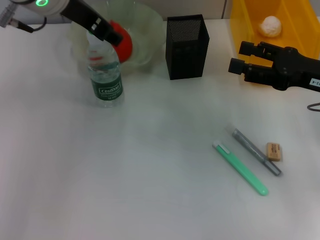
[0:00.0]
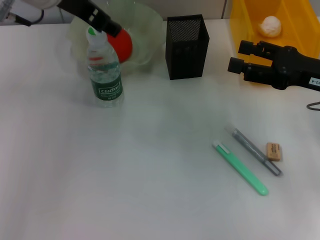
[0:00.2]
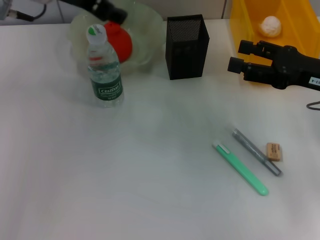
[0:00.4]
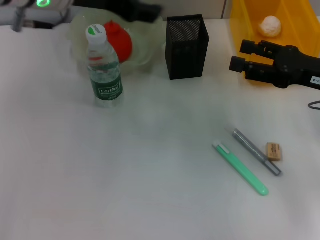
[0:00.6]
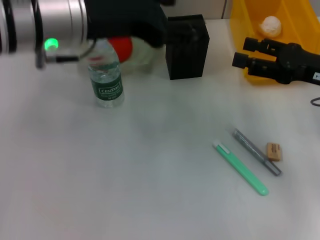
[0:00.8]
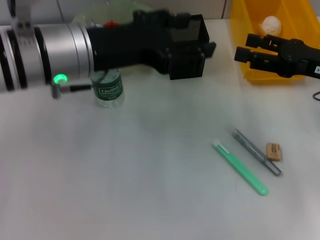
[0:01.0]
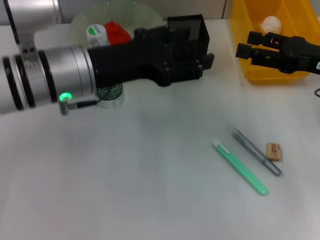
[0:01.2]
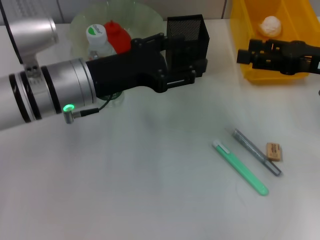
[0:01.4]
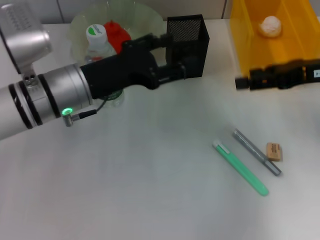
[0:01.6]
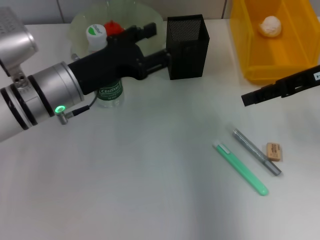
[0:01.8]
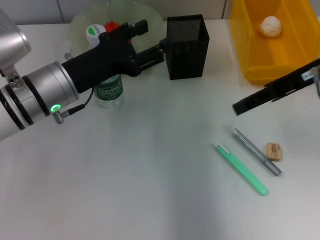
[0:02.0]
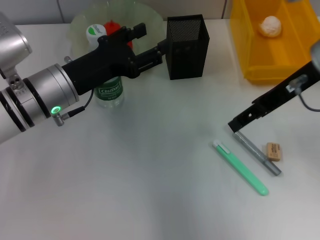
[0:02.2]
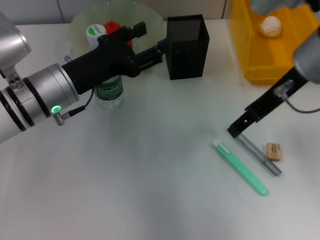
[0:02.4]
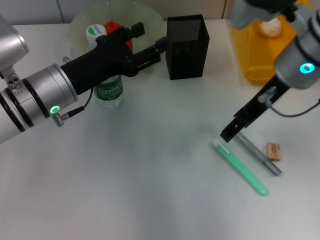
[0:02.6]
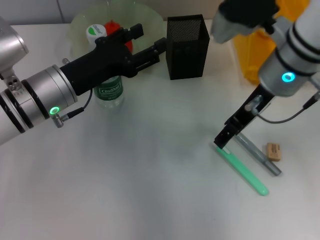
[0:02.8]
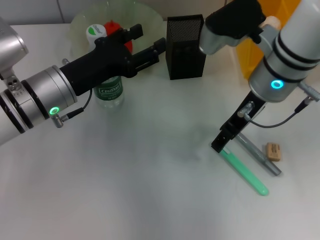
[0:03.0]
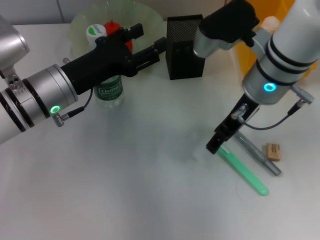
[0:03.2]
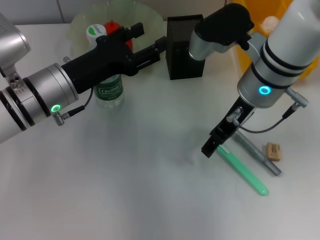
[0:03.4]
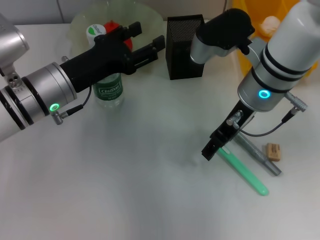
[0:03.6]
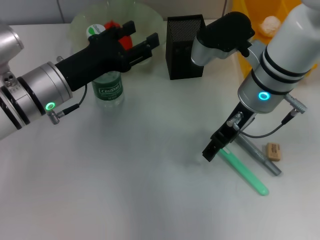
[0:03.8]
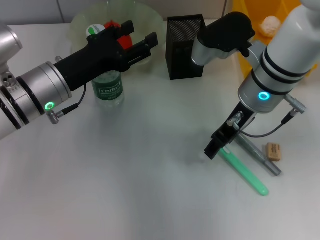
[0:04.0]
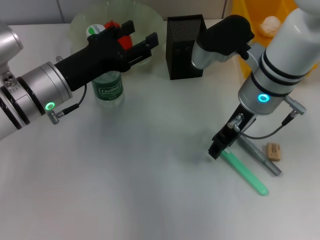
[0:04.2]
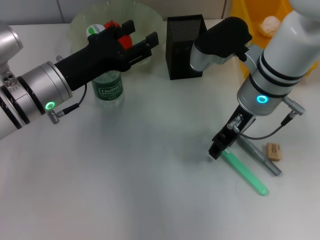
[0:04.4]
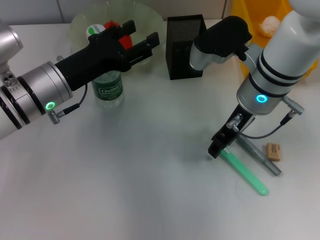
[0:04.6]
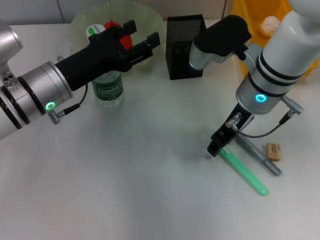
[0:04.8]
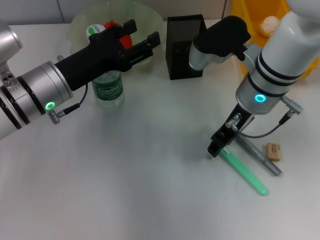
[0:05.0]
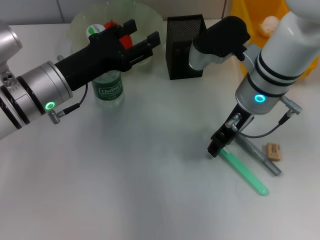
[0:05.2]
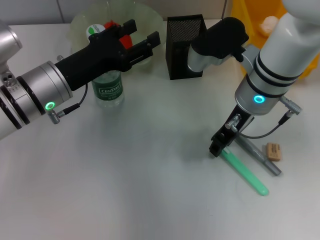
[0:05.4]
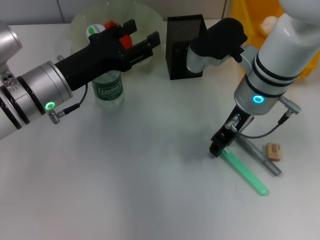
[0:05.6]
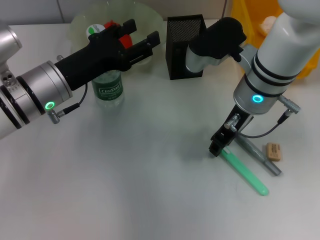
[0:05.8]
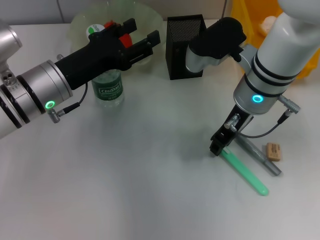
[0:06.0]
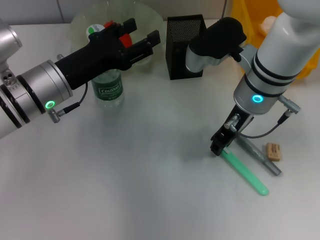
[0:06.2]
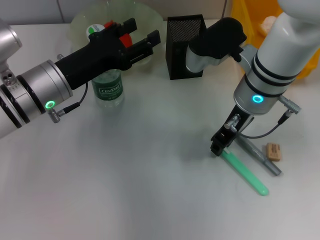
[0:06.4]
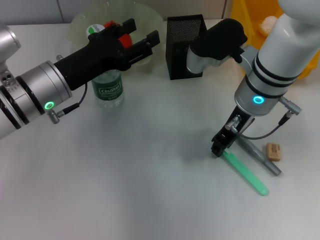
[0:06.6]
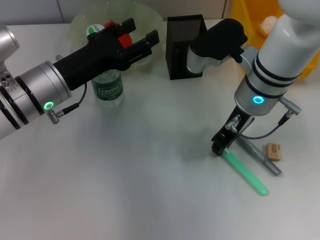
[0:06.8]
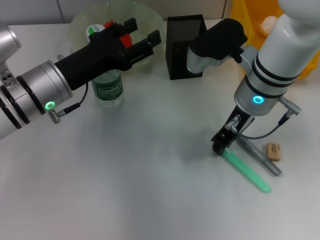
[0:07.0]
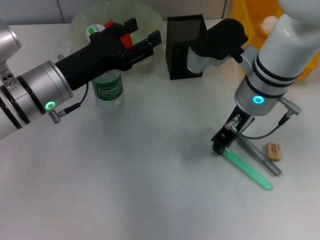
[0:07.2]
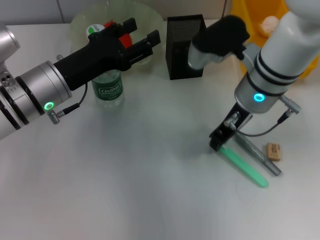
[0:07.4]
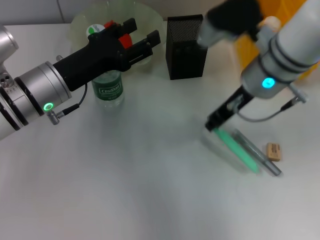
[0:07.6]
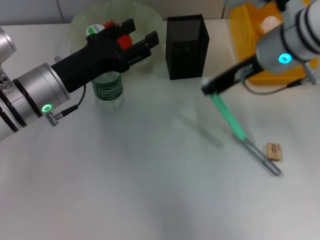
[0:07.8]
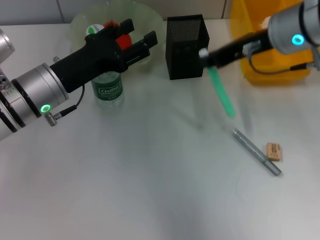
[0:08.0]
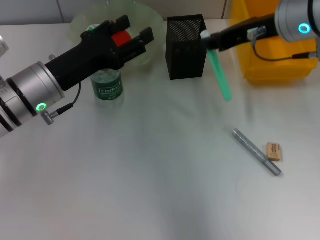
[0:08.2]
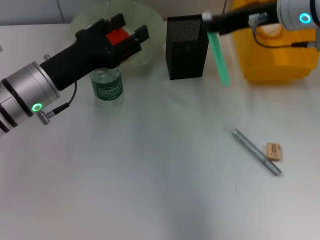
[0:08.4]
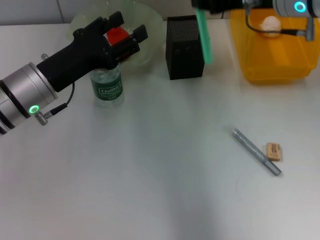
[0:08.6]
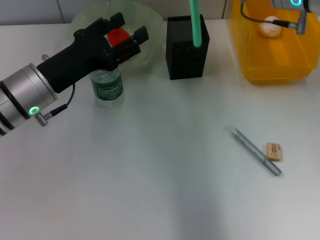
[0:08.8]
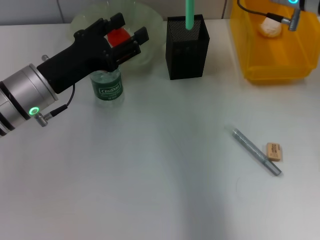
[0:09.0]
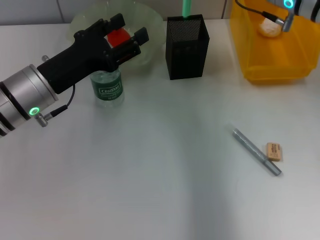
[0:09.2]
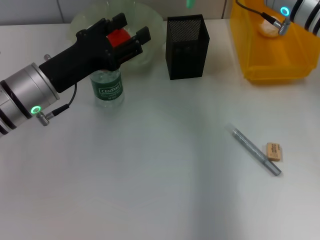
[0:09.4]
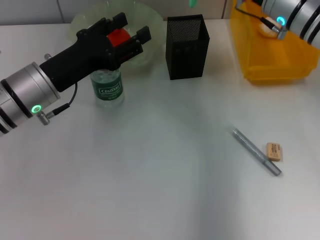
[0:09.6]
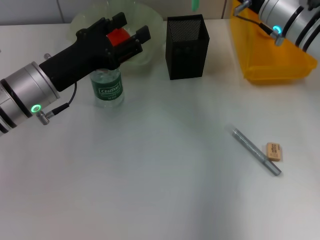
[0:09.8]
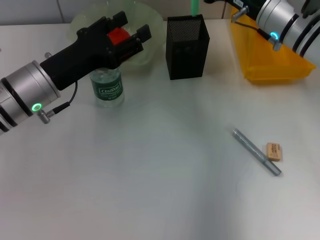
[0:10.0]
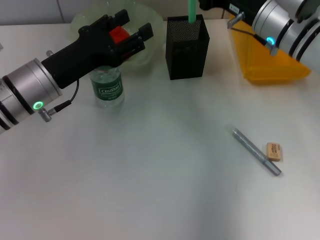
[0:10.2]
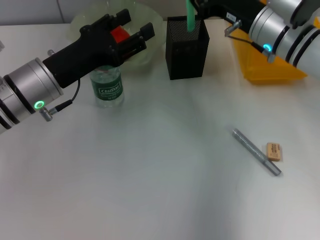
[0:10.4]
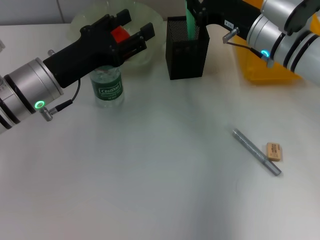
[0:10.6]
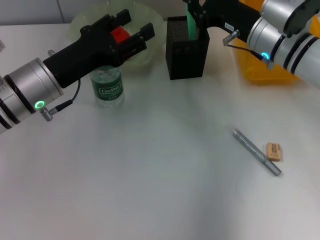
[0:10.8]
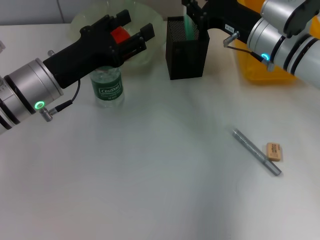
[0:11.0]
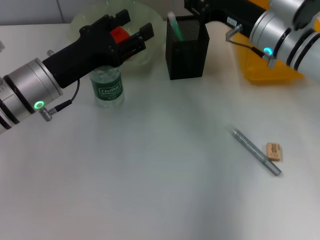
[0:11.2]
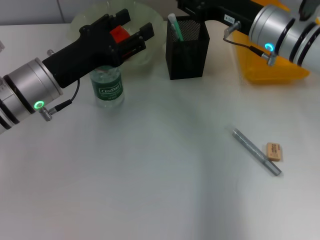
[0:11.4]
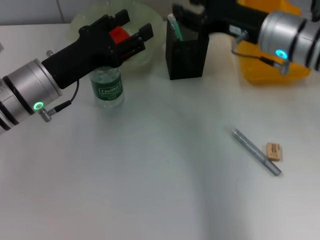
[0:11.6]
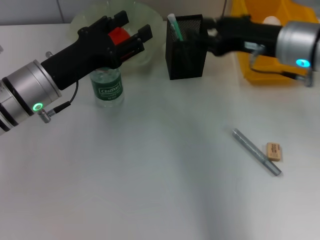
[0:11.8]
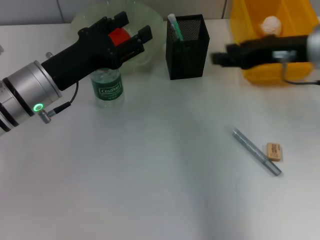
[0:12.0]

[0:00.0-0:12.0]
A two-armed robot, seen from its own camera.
Step, 0:00.0 to 0:07.0: Grab the blue utility knife with the right hand.
Step, 0:07.4 to 0:11.4: Place the blue utility knife into the pen holder with the right hand.
0:00.0 to 0:01.6: The left gripper shifts roughly 15 cm downward and backward, while the right gripper travels upward by approximately 5 cm.
0:01.6 to 0:03.0: The right gripper is displaced to the left by some 15 cm.
0:03.0 to 0:04.4: There are only small adjustments of the grippers.
0:04.4 to 0:06.0: Both grippers stay about where they are.
0:06.0 to 0:07.6: The grippers move only a little.
0:07.6 to 0:09.0: The right gripper changes place by approximately 10 cm.
0:09.0 to 0:10.4: The right gripper goes about 10 cm downward.
0:10.4 to 0:12.0: The right gripper shifts some 10 cm upward, backward and to the right, and opens.

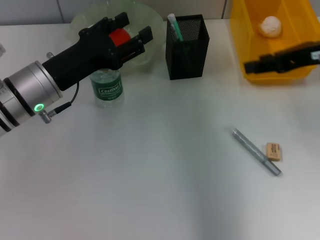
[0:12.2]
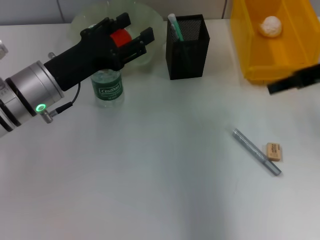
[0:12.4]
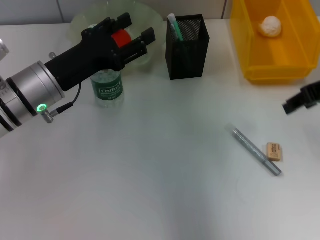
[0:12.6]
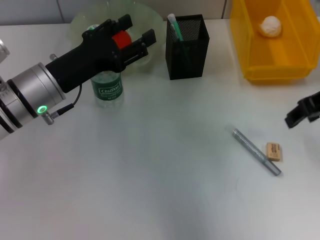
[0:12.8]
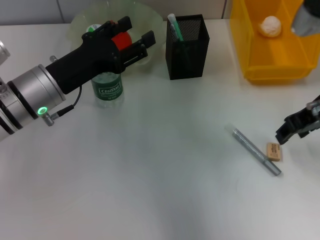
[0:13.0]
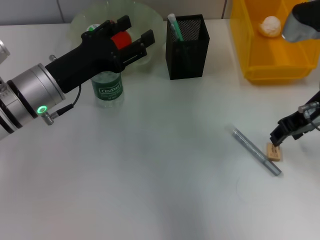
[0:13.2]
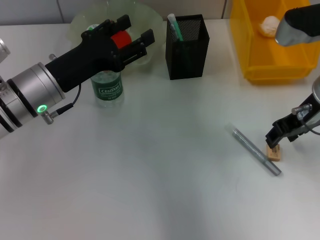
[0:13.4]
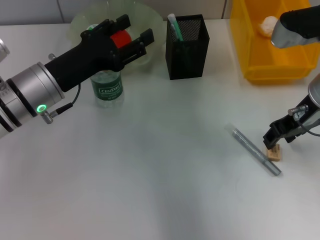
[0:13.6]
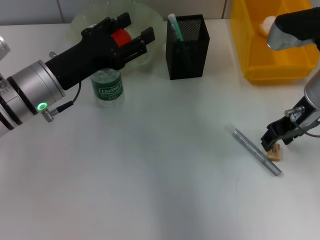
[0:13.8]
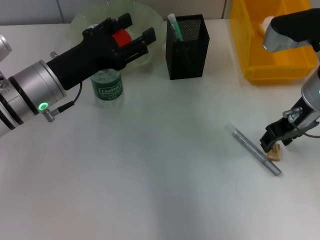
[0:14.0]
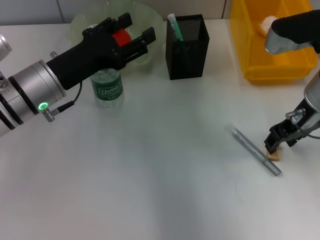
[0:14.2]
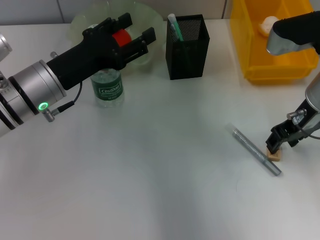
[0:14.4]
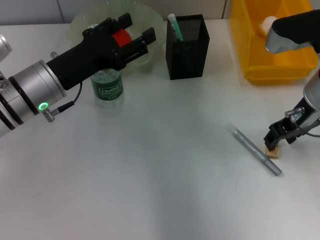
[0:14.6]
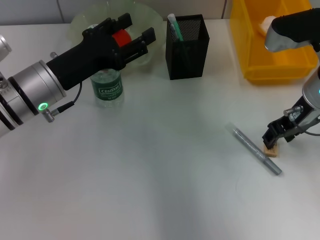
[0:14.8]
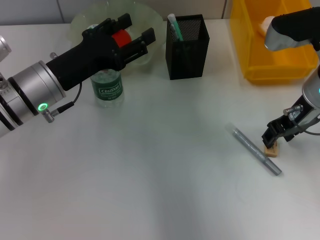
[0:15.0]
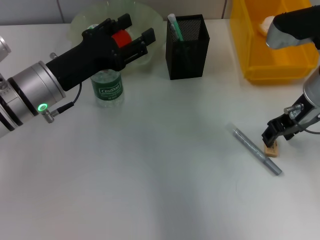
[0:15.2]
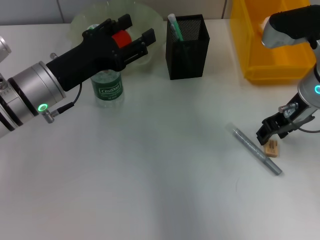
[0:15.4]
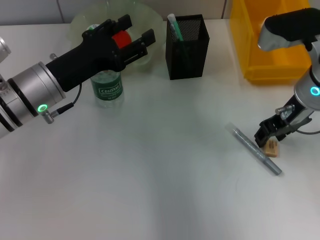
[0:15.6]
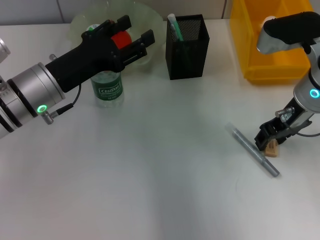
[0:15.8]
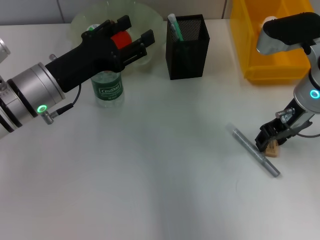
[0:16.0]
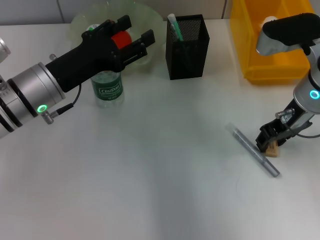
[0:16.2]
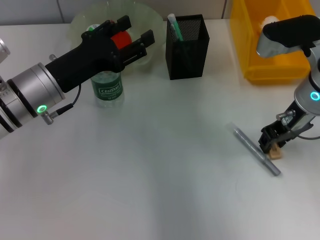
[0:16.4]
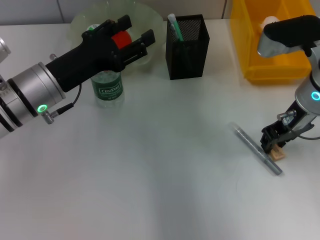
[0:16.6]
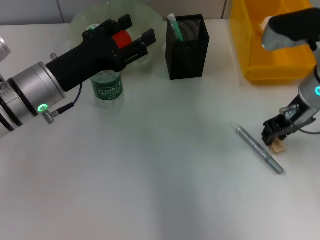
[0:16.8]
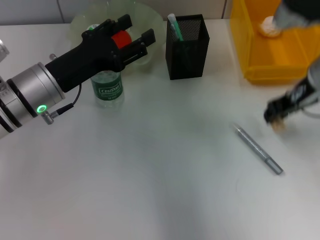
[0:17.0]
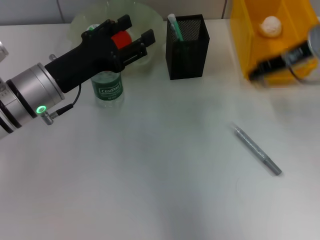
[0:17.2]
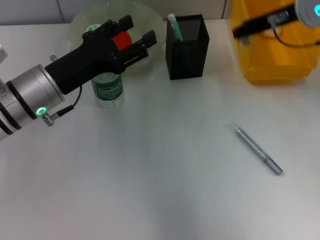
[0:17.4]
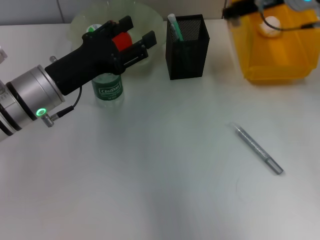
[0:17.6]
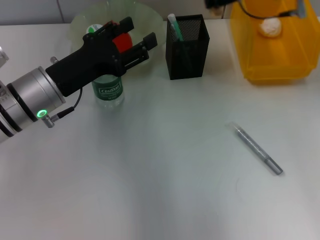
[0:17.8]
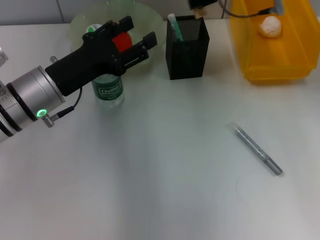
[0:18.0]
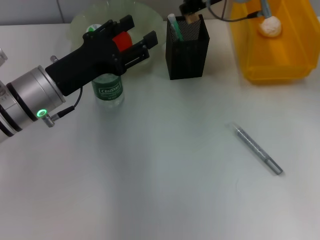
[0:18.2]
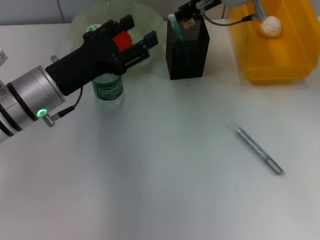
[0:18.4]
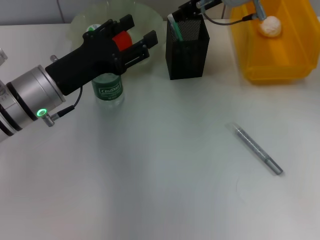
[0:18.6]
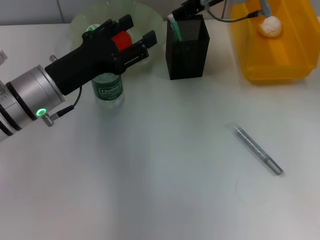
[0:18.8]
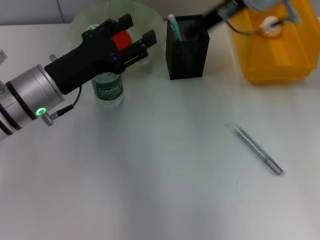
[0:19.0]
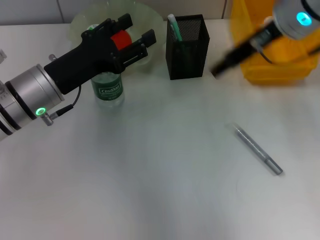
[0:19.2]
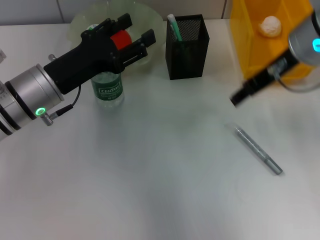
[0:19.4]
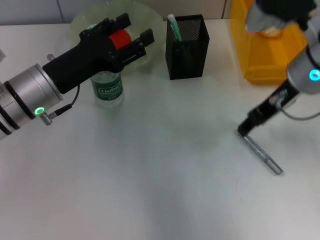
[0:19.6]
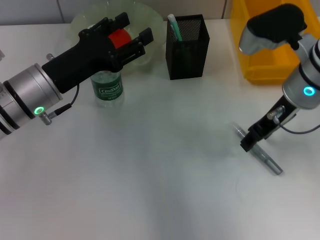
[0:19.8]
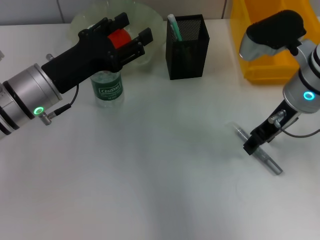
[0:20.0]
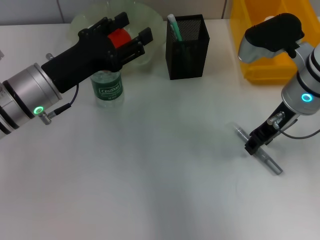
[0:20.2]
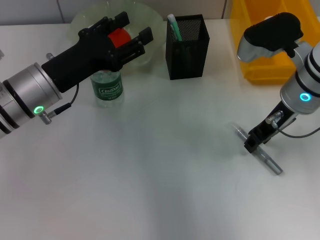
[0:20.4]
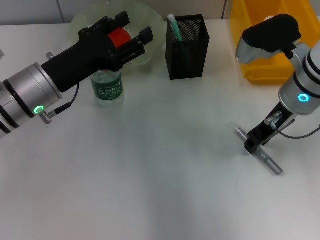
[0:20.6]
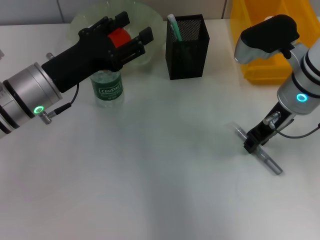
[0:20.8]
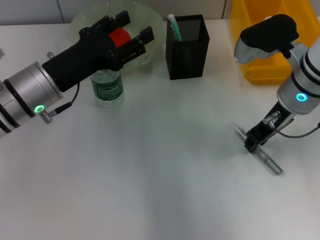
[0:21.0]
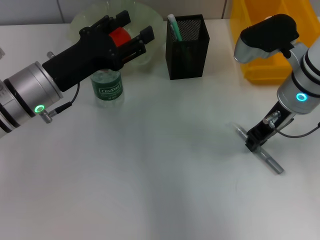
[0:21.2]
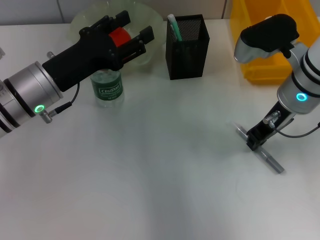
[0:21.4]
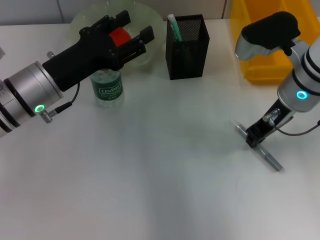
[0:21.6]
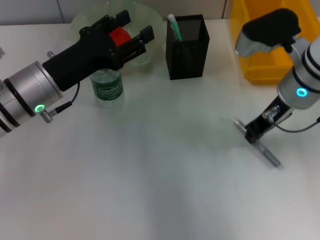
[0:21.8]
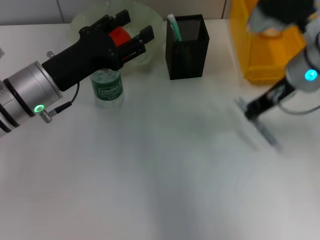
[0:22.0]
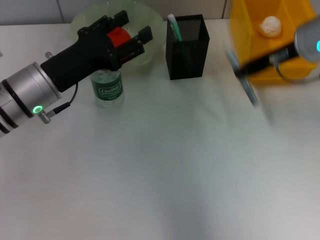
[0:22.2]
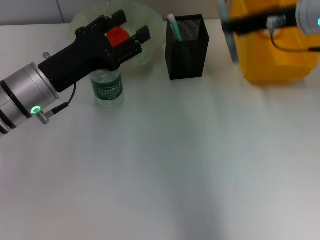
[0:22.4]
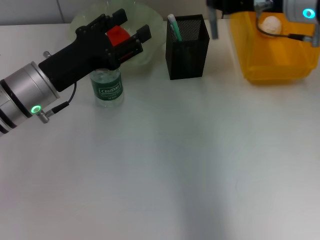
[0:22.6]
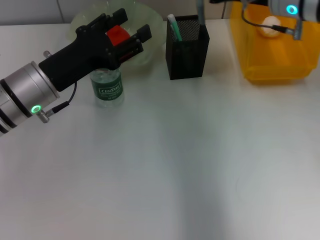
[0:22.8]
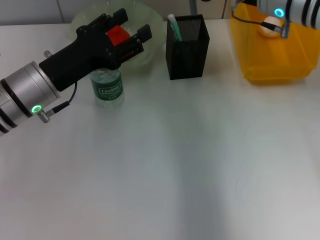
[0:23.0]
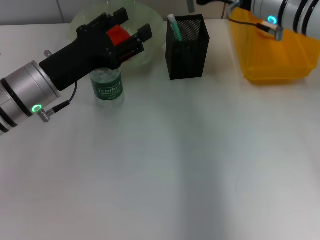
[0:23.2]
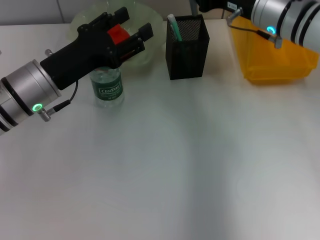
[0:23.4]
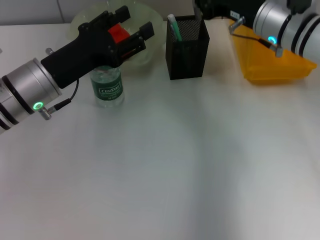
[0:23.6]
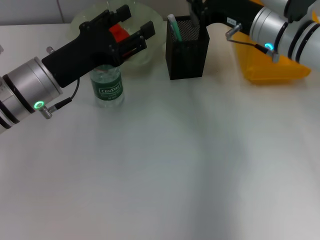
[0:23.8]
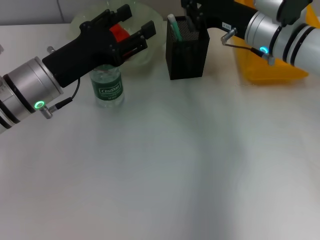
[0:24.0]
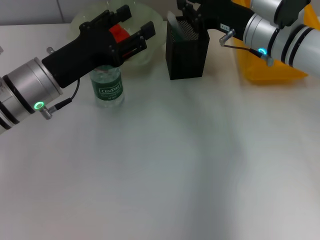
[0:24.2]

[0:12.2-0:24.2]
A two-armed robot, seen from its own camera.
Step, 0:12.2 to 0:16.4: Grab the eraser with the right hand.
Step, 0:16.8 to 0:18.6: Put the eraser into the pen holder with the right hand.
Step, 0:19.0 to 0:21.4: Grab the gray glue with the right hand.
0:12.2 to 0:13.8: The right gripper shifts about 10 cm downward and to the left.
0:13.8 to 0:15.2: Both grippers stay about where they are.
0:15.2 to 0:16.6: The grippers make only small movements.
0:16.6 to 0:18.2: The right gripper travels forward, to the left and upward by approximately 15 cm.
0:18.2 to 0:19.8: The right gripper is displaced backward, to the right and downward by roughly 15 cm, and opens.
0:19.8 to 0:21.2: The right gripper closes up.
0:21.2 to 0:22.6: The right gripper shifts roughly 5 cm upward.
0:22.6 to 0:24.2: The right gripper goes about 10 cm downward.
